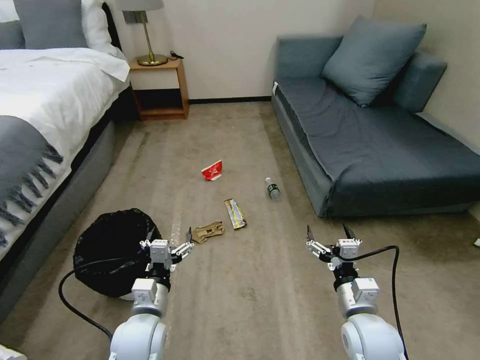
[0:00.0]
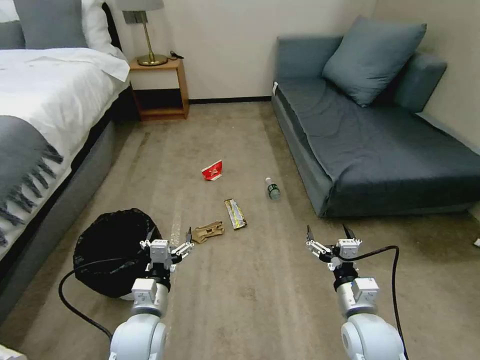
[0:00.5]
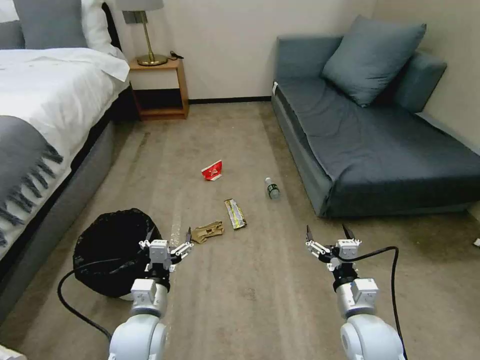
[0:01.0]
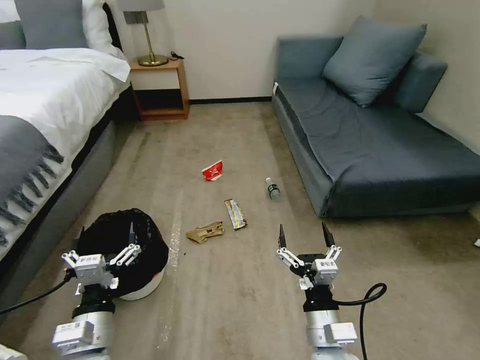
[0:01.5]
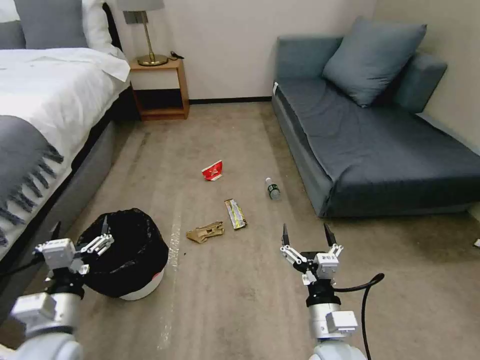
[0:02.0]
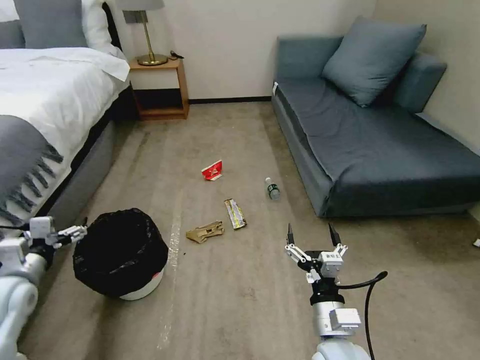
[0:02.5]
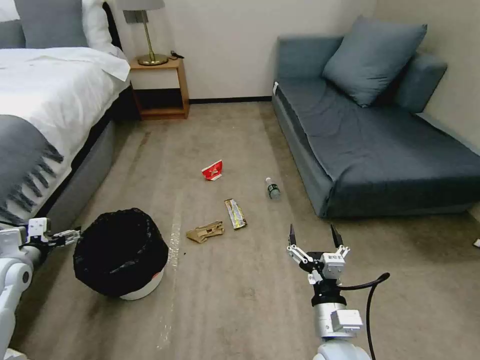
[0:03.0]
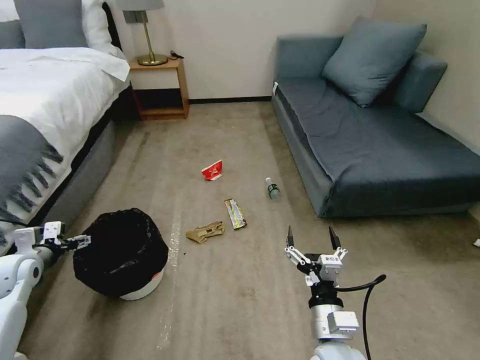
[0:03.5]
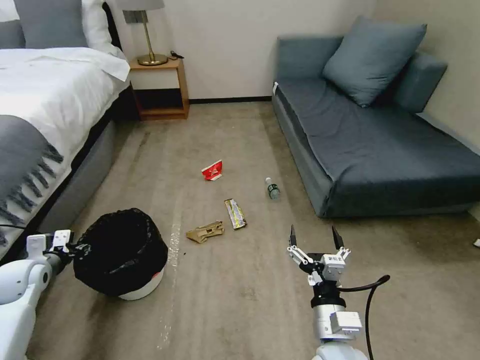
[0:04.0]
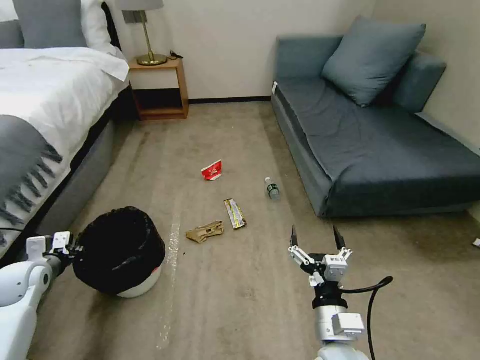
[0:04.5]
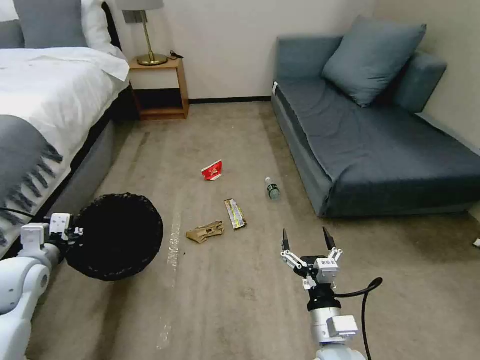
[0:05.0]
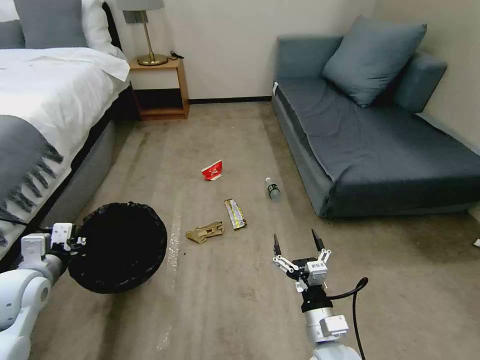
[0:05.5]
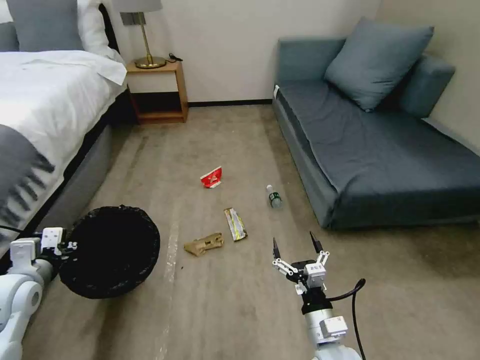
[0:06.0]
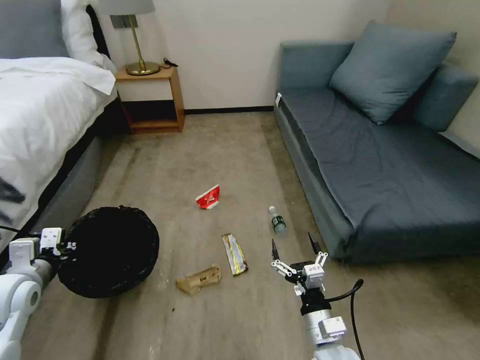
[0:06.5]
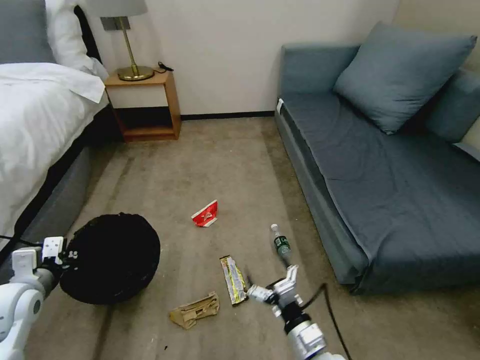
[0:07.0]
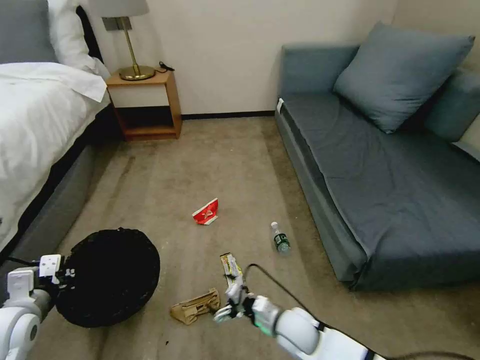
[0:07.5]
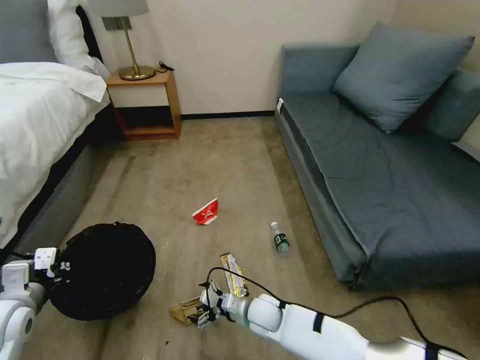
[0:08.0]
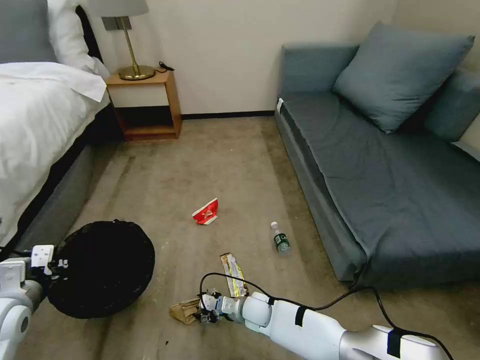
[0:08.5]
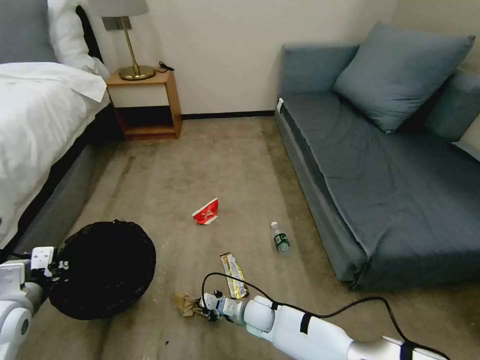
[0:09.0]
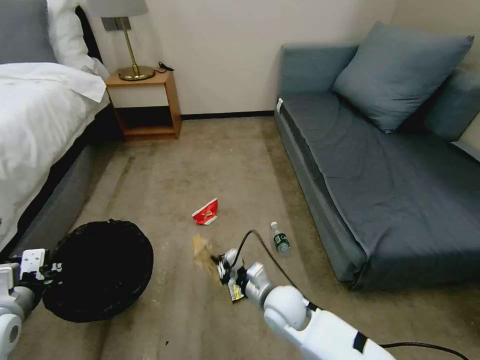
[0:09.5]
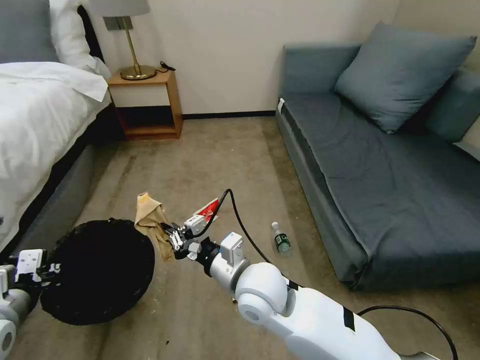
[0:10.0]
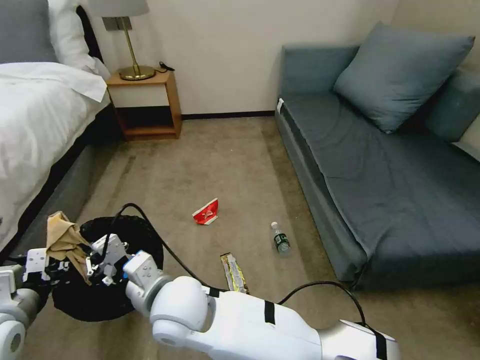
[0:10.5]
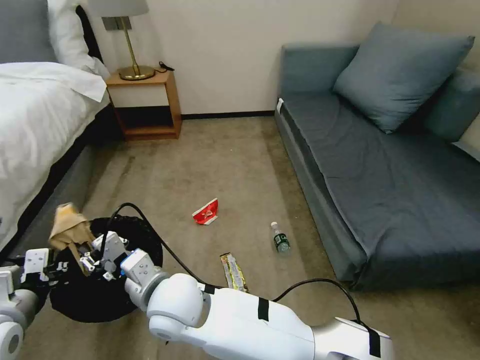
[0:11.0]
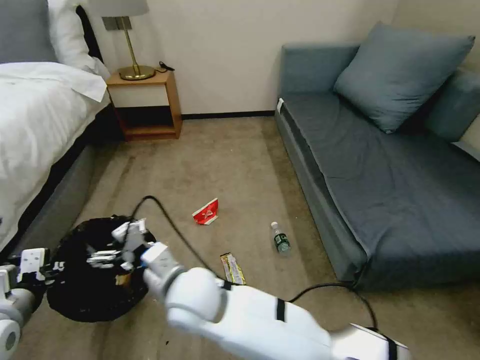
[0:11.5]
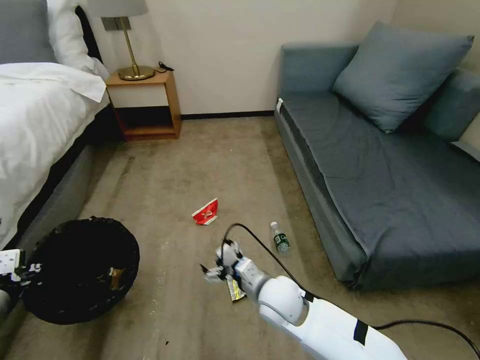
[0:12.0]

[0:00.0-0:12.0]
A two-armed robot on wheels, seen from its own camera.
Task of the whole recording: Pick up the trash bin, then pick up the garbage on the floor and place it into the trash bin.
0:02.0 to 0:04.0: The left gripper moves to the left and forward, roughly 25 cm, and closes its fingers.
0:04.0 to 0:06.0: The left gripper travels upward, to the right and backward by approximately 10 cm, and closes up; the right gripper moves downward, some 5 cm.
0:06.0 to 0:08.0: The right gripper moves forward, to the left and downward, roughly 20 cm.
0:08.0 to 0:10.0: The right gripper heads upward, covering some 25 cm, and closes.
0:10.0 to 0:12.0: The right gripper shifts some 10 cm downward, travels to the left and back again, some 15 cm each way, and opens its fingers.

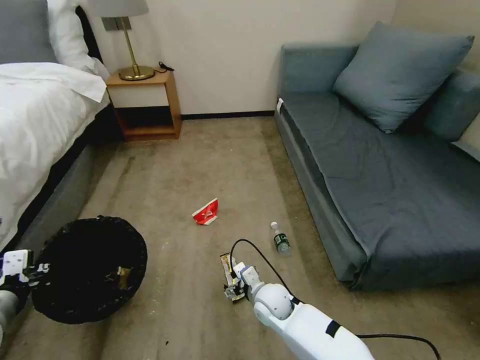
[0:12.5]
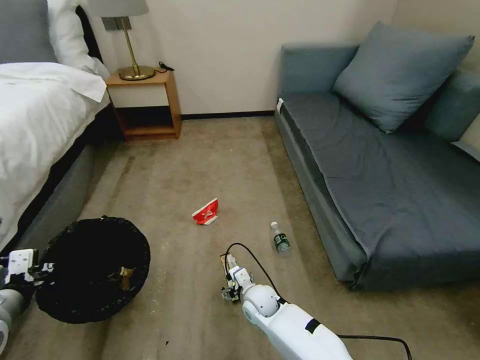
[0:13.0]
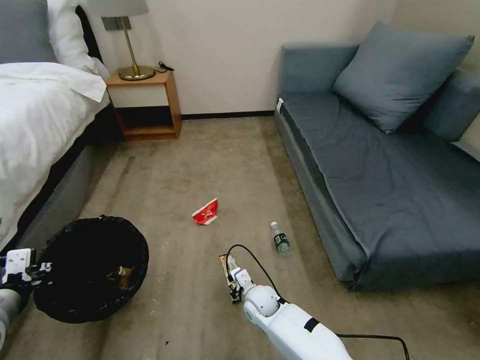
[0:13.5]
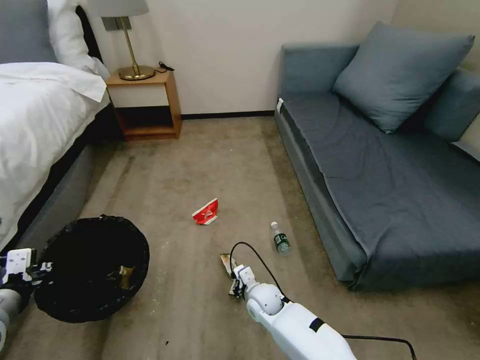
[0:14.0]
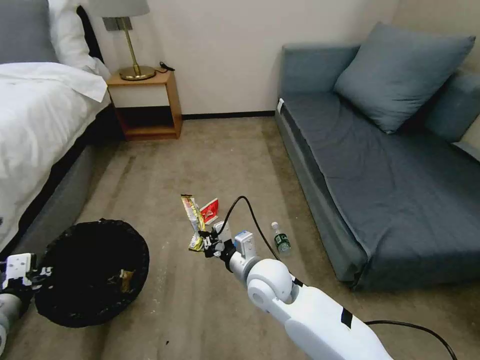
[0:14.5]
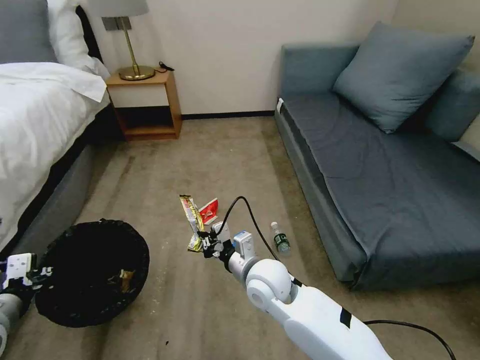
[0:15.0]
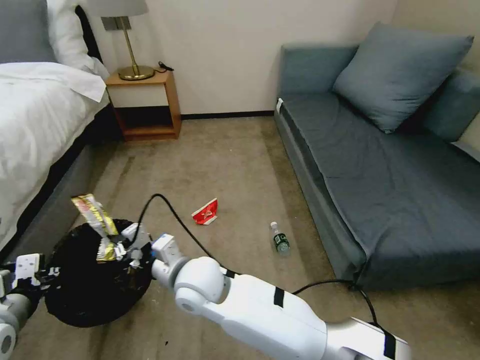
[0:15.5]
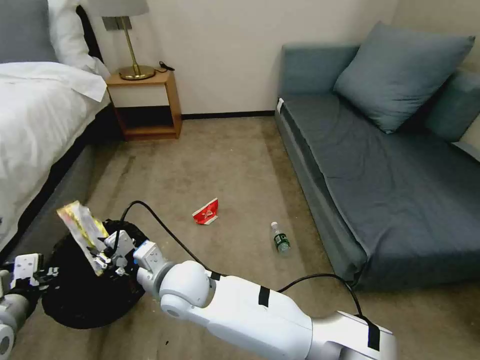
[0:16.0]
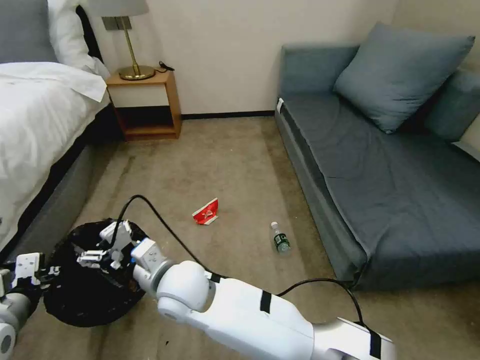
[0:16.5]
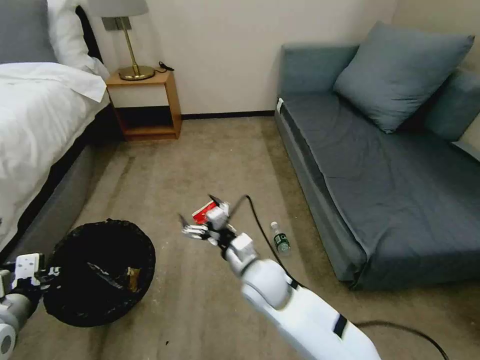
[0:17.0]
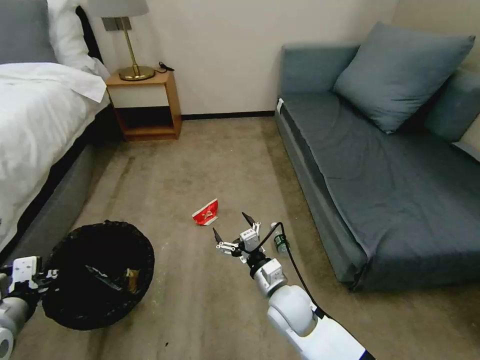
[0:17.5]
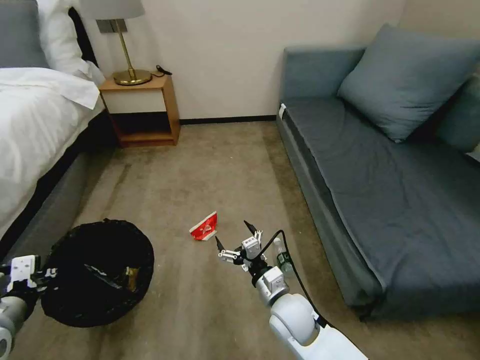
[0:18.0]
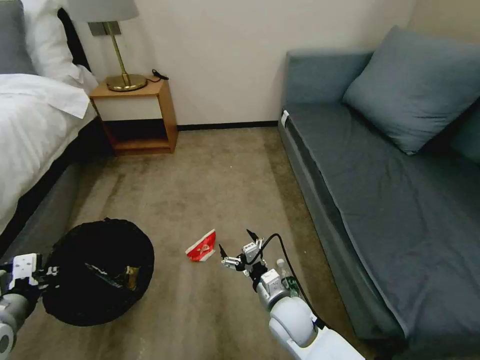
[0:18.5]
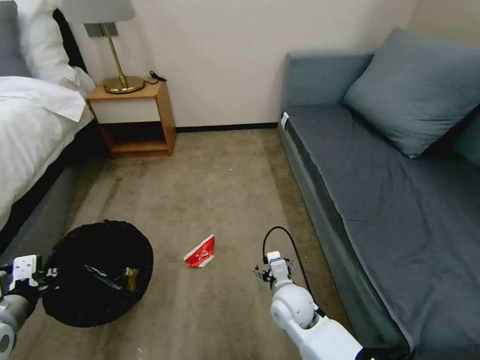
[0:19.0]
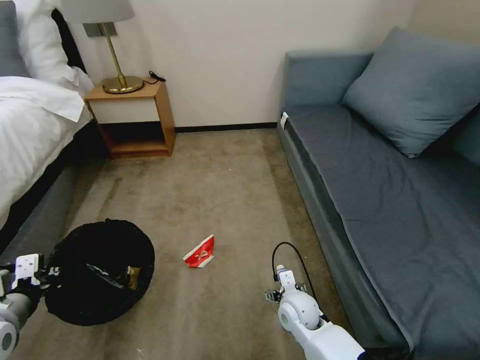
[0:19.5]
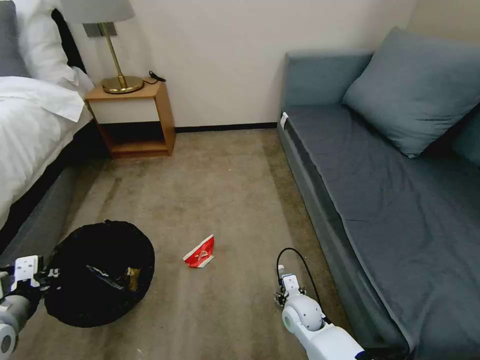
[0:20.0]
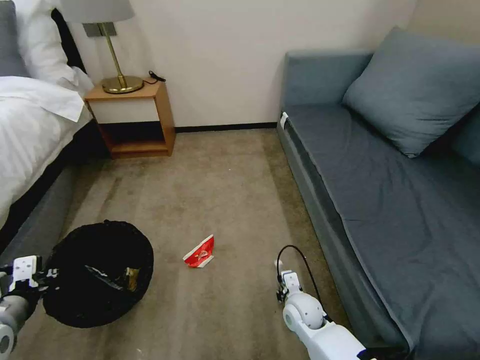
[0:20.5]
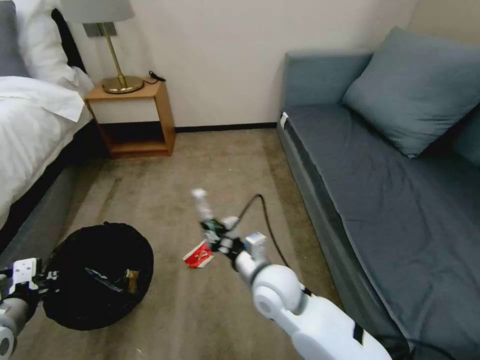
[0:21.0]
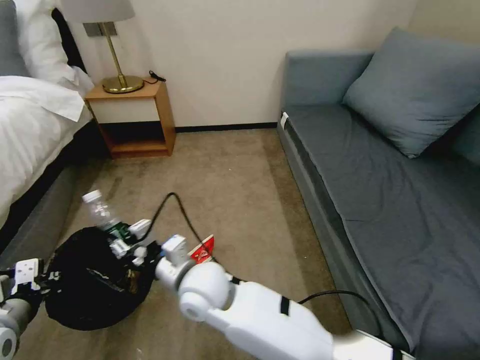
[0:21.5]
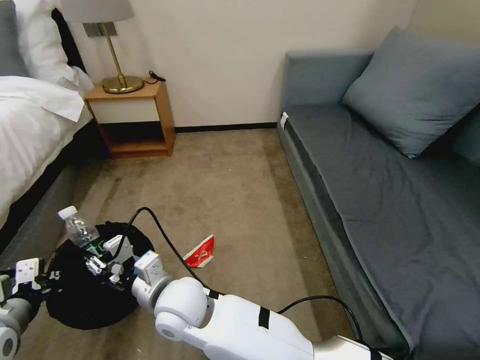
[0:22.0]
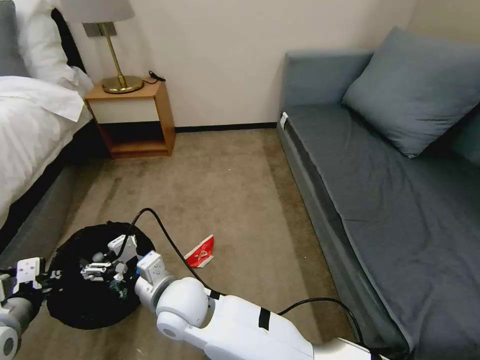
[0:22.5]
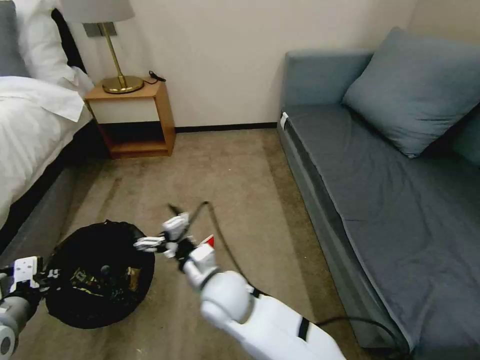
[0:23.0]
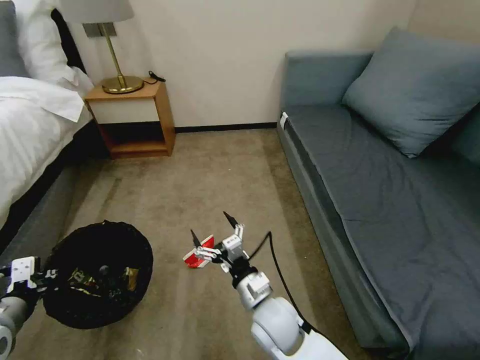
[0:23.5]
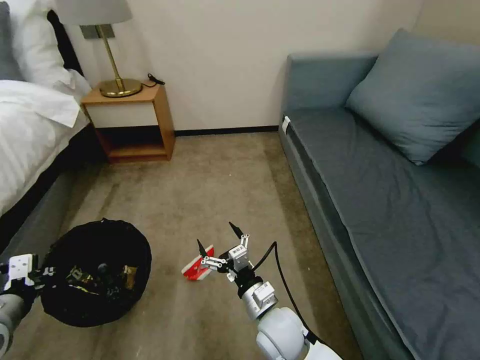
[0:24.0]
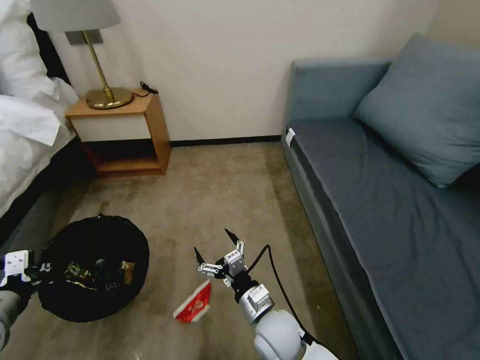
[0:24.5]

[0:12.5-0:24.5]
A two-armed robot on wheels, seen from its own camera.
Task of the whole recording: Pick up the trash bin, then pick up the garbage on the floor and place it into the trash bin.
0:12.5 to 0:14.5: The right gripper goes about 15 cm upward, and closes.
0:14.5 to 0:16.5: The right gripper heads to the left and upward, covering about 20 cm, and opens.
0:16.5 to 0:18.5: The right gripper heads to the right and downward, covering about 25 cm.
0:18.5 to 0:20.5: The right gripper travels downward and to the right by roughly 10 cm, and closes its fingers.
0:20.5 to 0:22.5: The right gripper travels to the left and upward by some 35 cm, and opens its fingers.
0:22.5 to 0:24.5: The right gripper moves to the right and downward, roughly 20 cm.

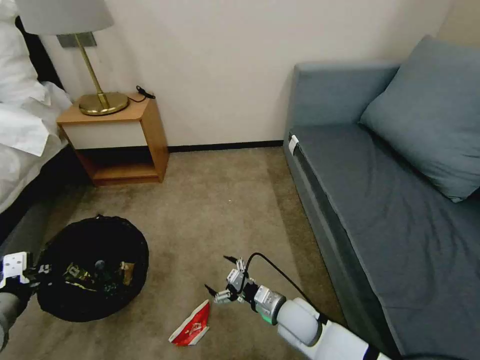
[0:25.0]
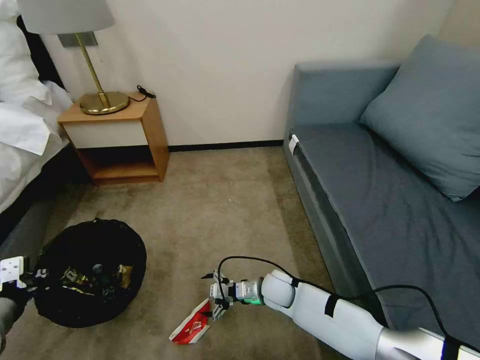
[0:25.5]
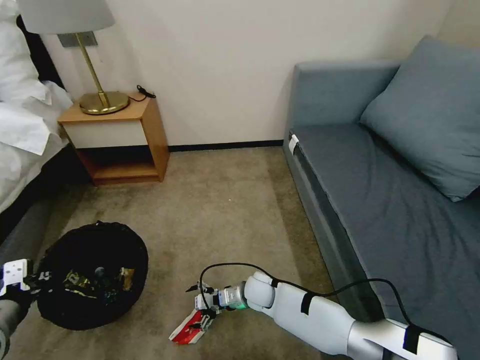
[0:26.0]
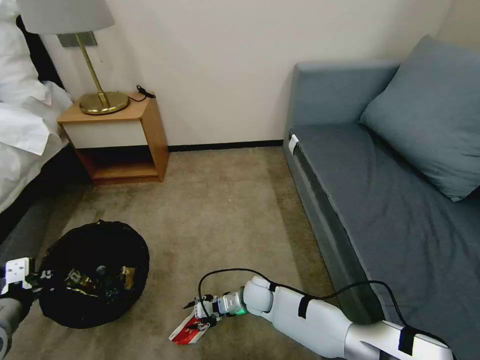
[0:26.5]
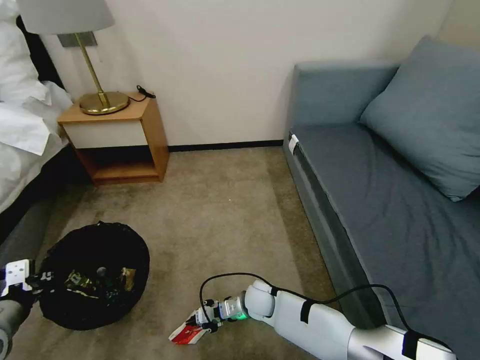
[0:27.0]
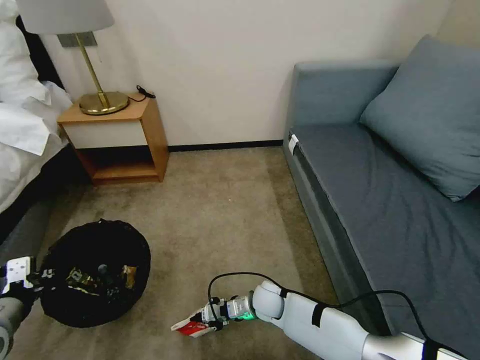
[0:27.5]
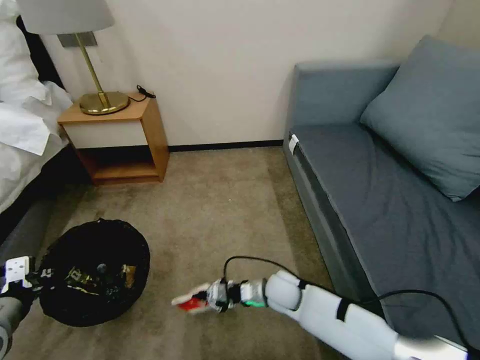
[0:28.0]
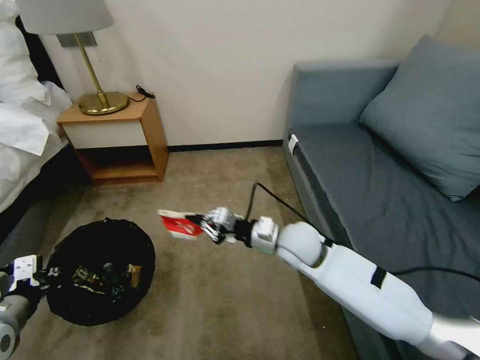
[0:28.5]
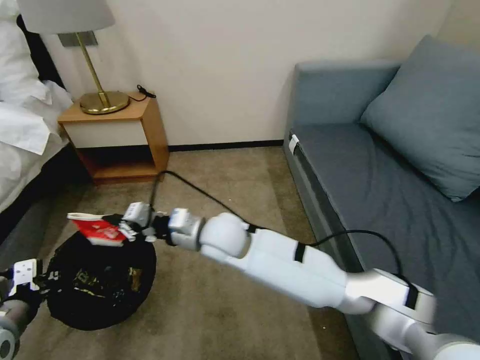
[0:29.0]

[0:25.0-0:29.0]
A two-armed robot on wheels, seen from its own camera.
Task of the whole recording: Pick up the trash bin, then pick up the garbage on the floor and place it into the trash bin.
0:25.0 to 0:27.0: The right gripper goes some 15 cm to the left, downward and forward, and closes its fingers.
0:27.0 to 0:29.0: The right gripper travels upward by some 30 cm.
